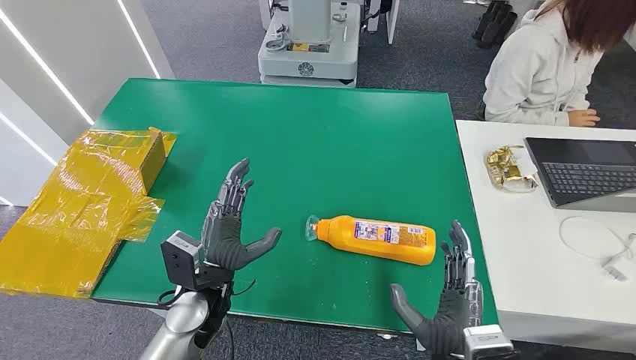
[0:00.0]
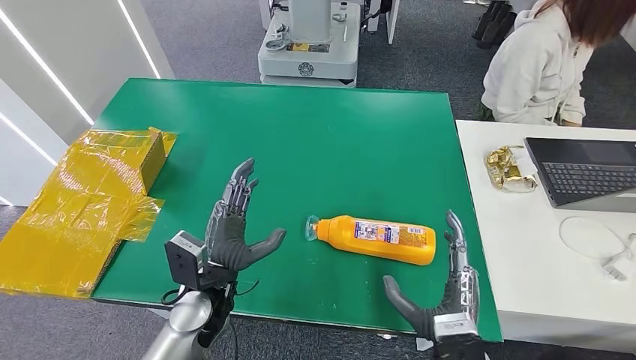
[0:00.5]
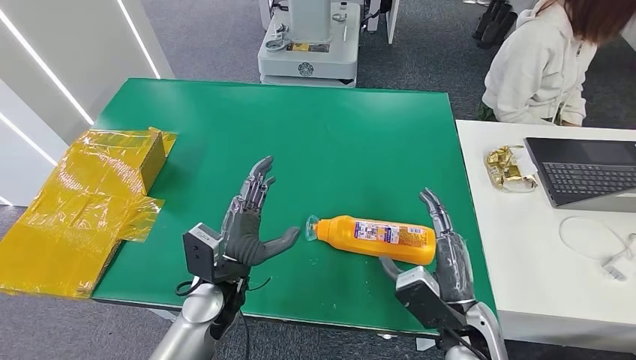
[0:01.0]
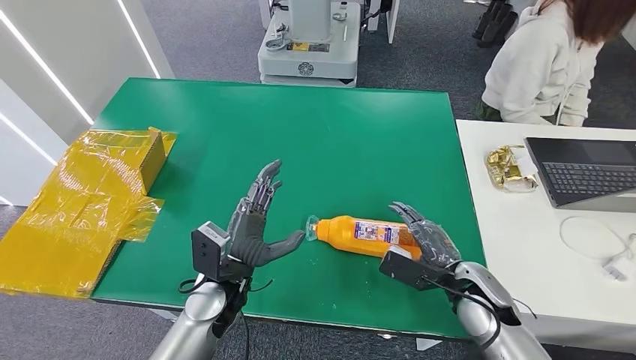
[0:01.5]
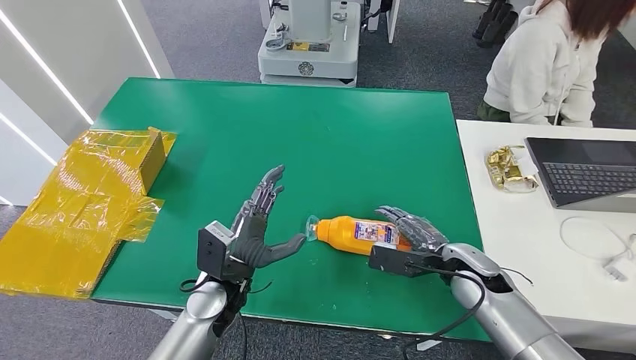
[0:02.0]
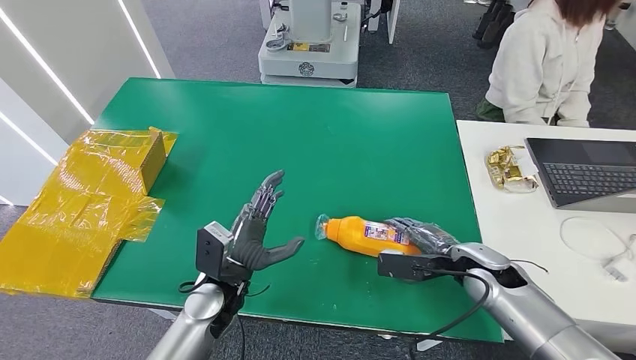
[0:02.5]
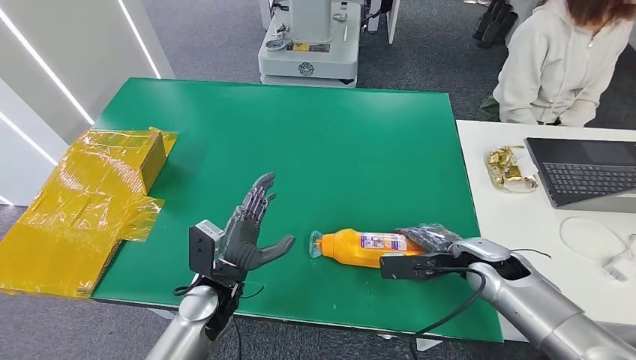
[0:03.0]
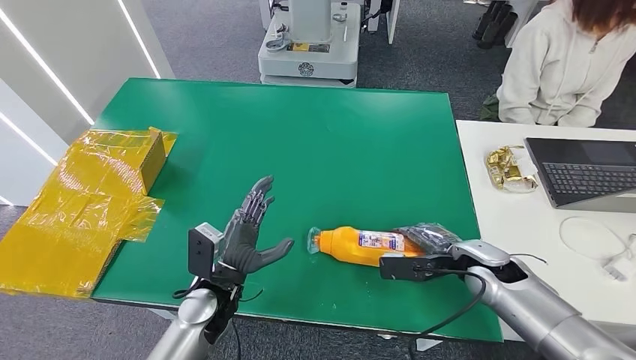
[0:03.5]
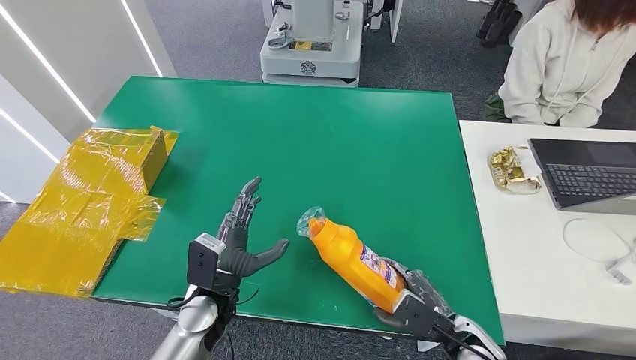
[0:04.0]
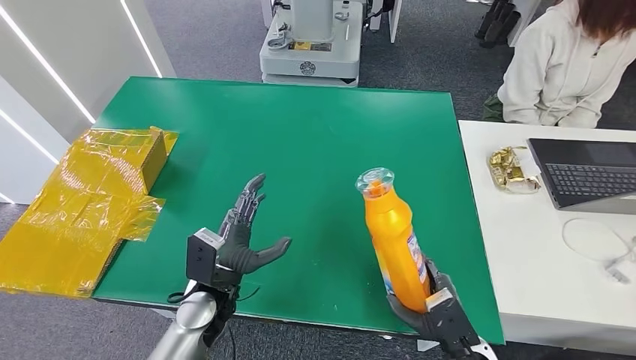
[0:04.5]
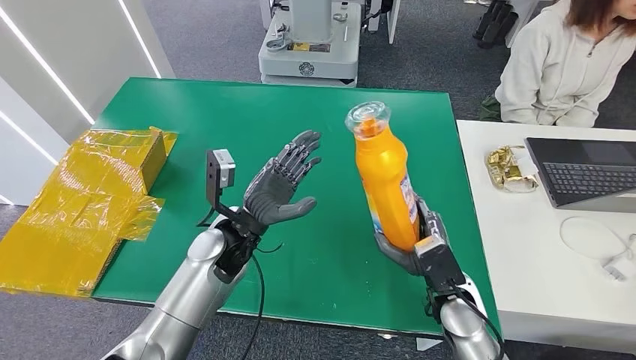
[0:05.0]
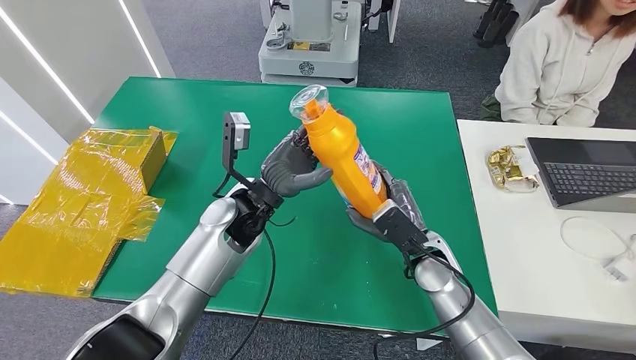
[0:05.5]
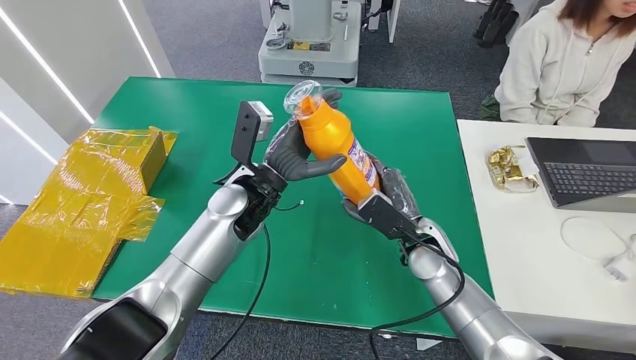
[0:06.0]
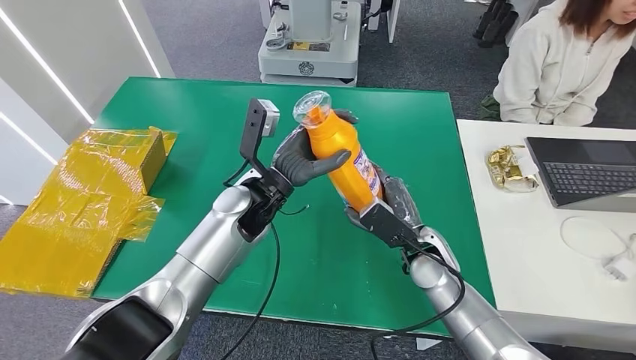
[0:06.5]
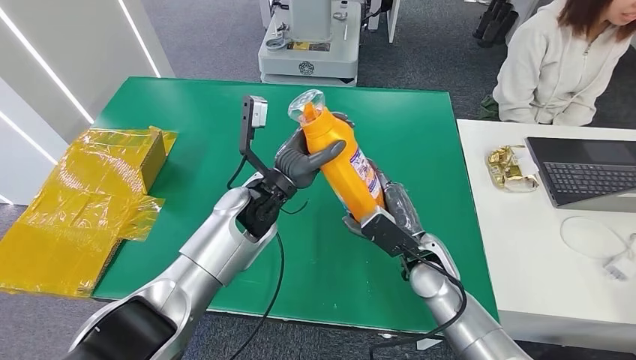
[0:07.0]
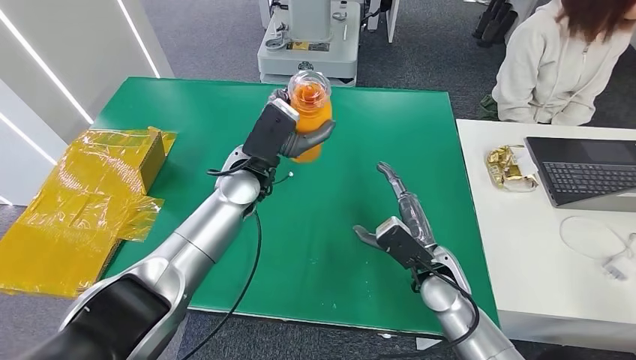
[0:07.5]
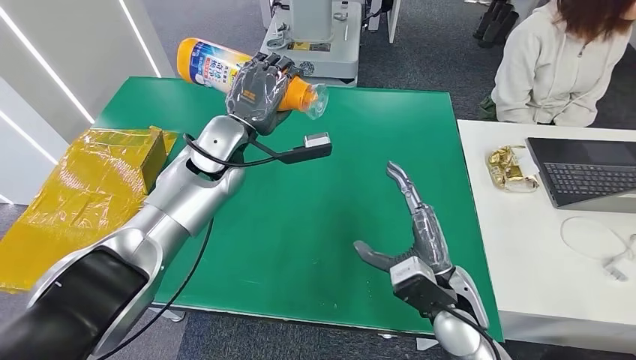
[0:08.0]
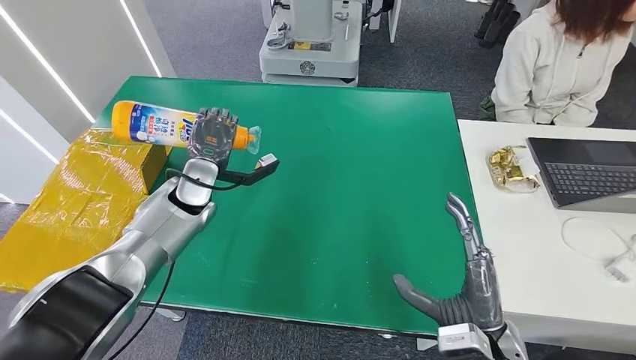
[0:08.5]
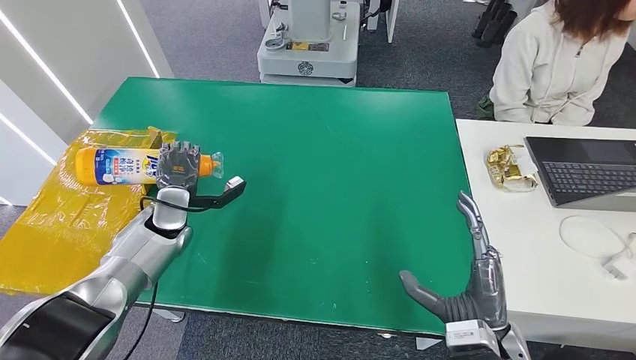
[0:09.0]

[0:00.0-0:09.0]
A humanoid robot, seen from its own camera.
Step, 0:00.0 to 0:04.5: Pick up the bottle from the table.
0:02.0 to 0:04.5: The right hand moves backward and downward, about 15 cm.

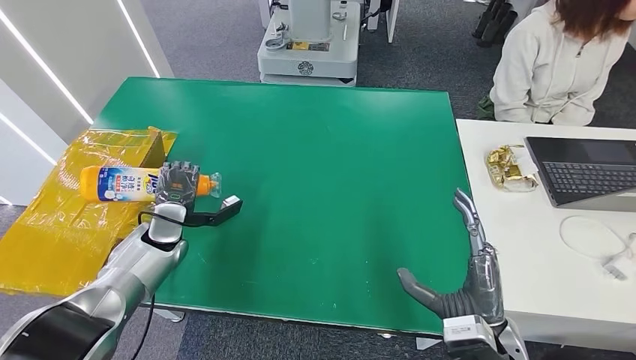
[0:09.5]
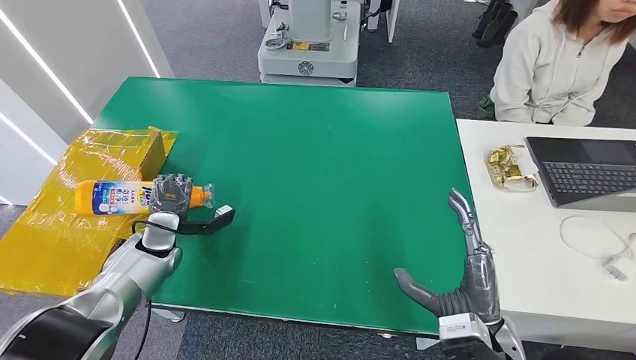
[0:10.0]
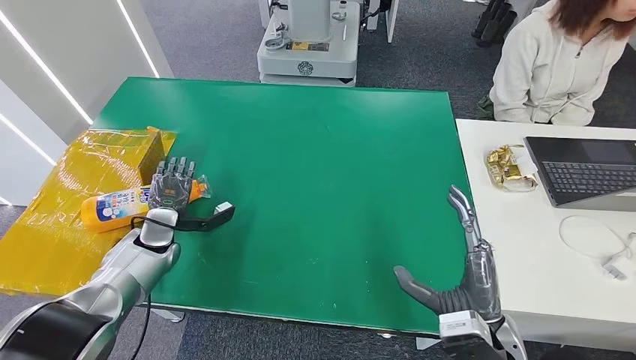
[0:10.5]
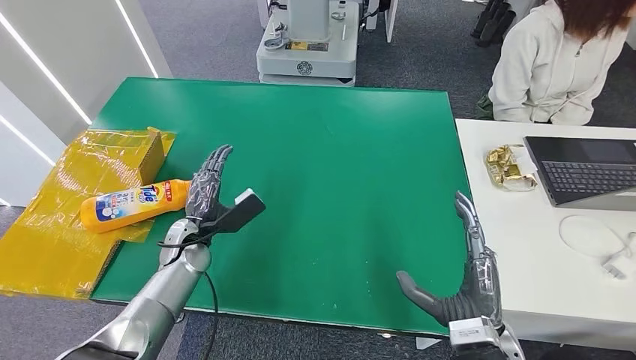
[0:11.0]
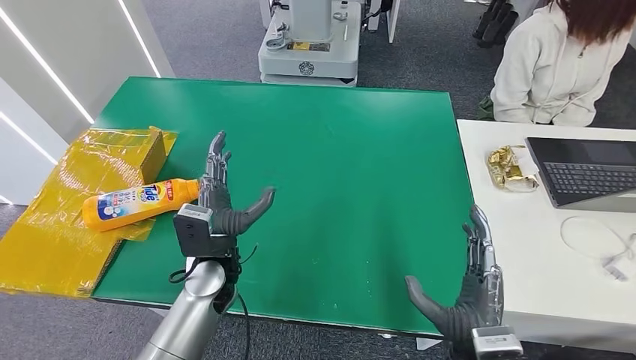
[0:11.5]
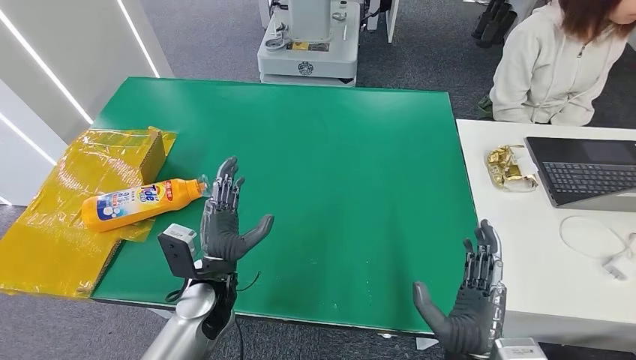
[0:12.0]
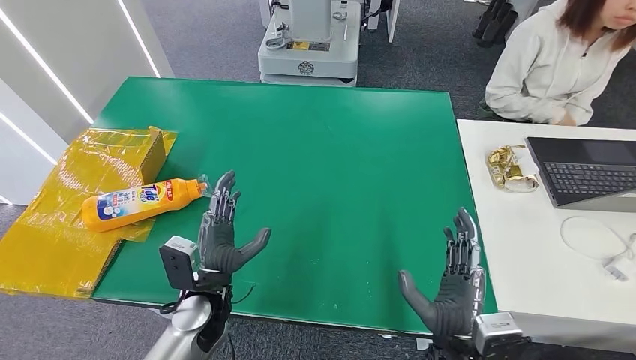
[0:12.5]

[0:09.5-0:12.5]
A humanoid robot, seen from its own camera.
Step, 0:09.5 to 0:12.5: Turn the bottle to the front side.
0:09.5 to 0:11.0: The left hand moves to the right, approximately 5 cm.
0:11.0 to 0:12.5: The left hand shifts about 15 cm backward and to the right; the right hand ends up about 5 cm from where it was.

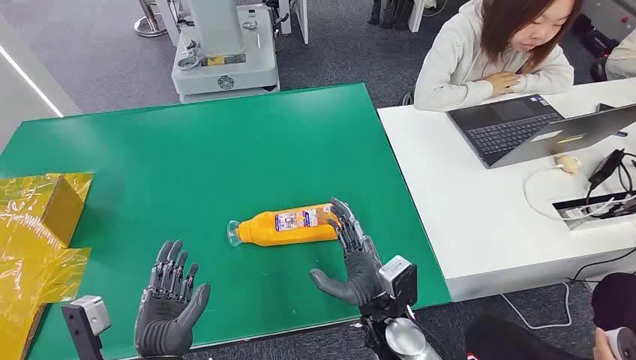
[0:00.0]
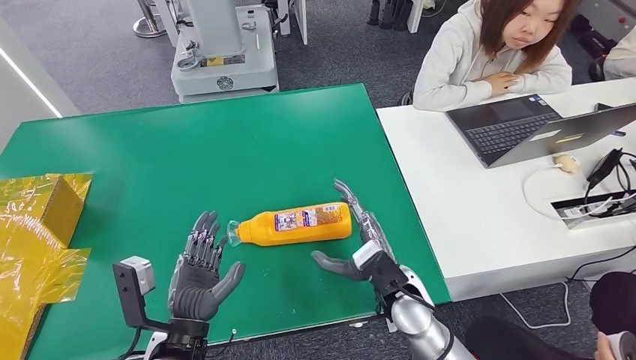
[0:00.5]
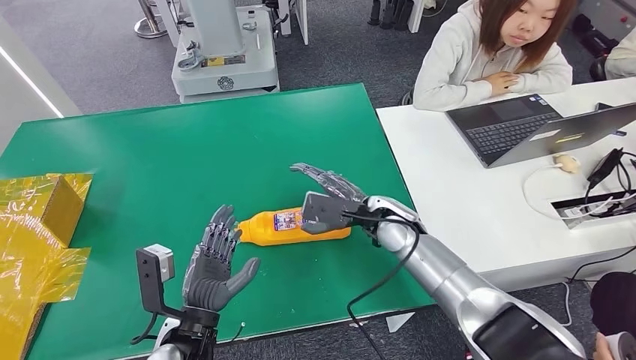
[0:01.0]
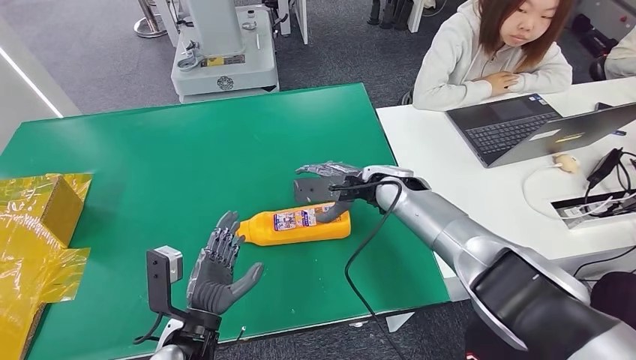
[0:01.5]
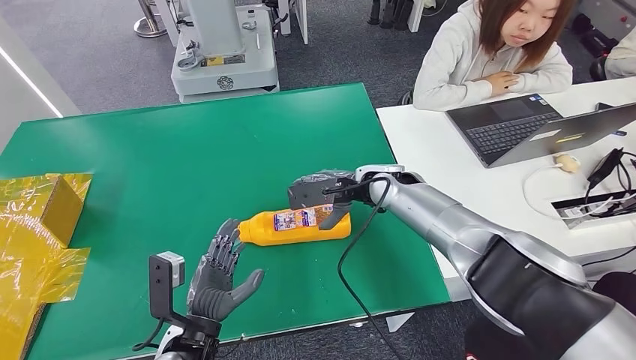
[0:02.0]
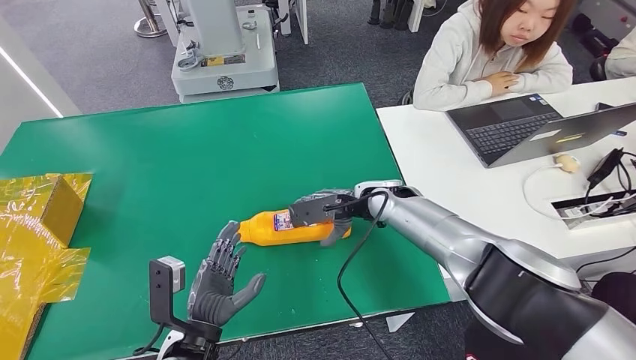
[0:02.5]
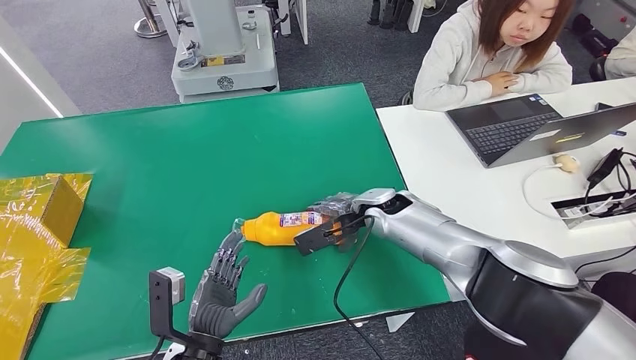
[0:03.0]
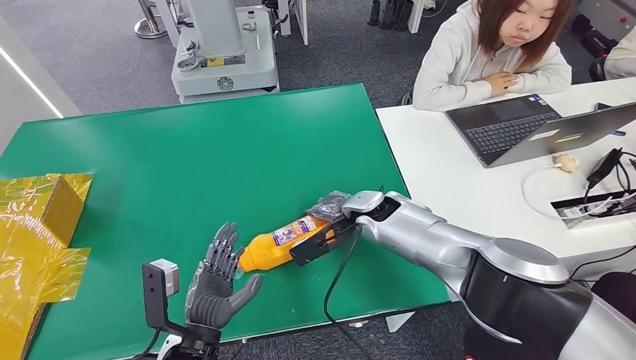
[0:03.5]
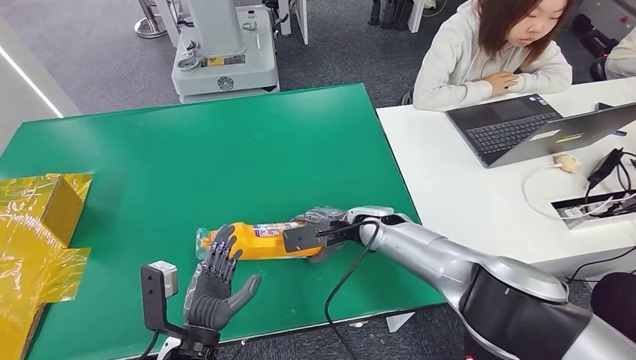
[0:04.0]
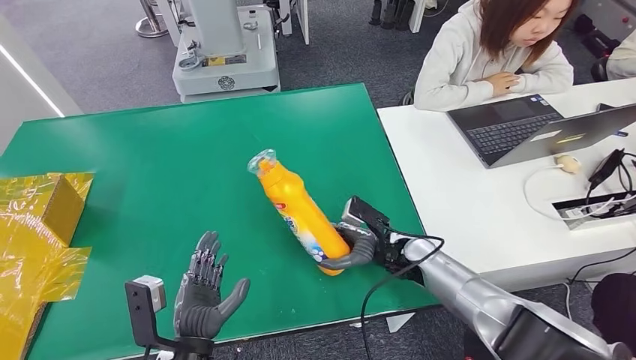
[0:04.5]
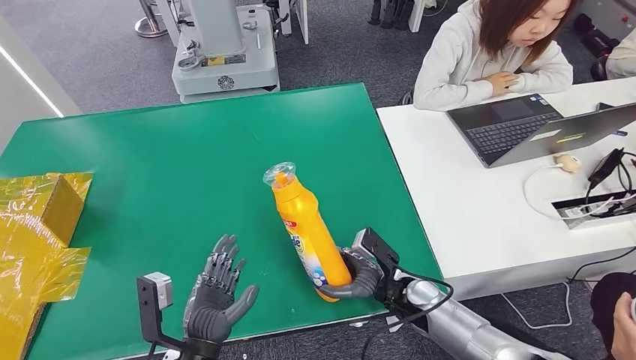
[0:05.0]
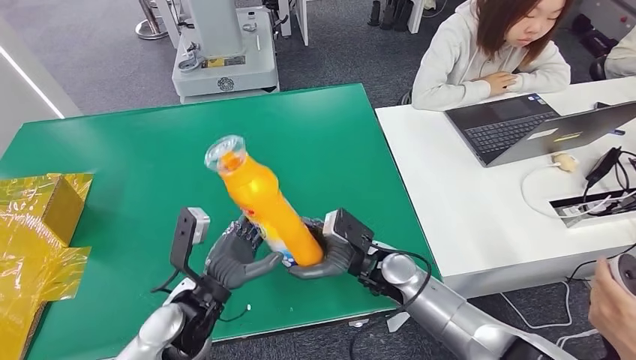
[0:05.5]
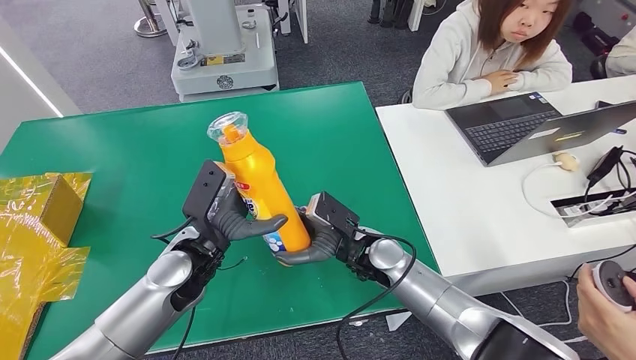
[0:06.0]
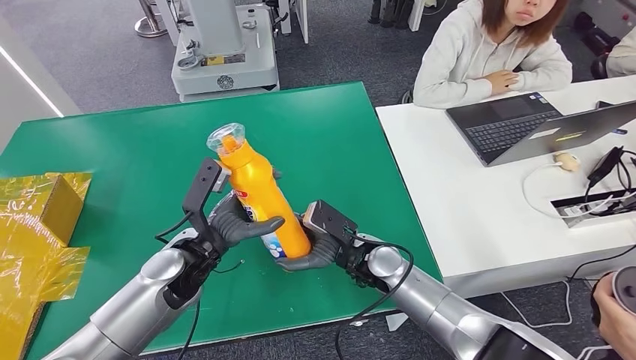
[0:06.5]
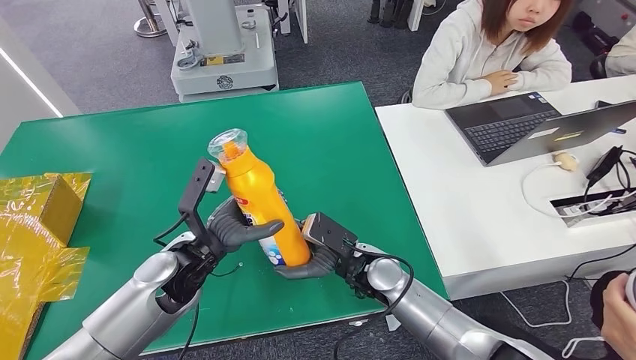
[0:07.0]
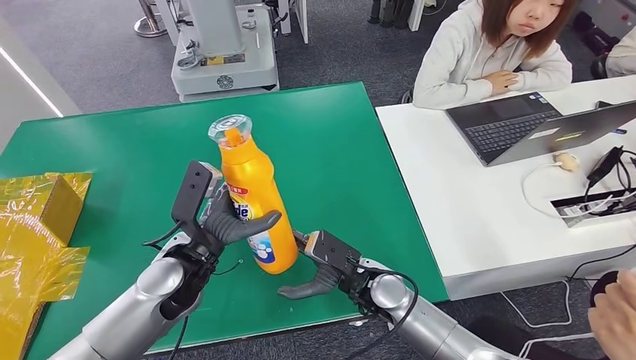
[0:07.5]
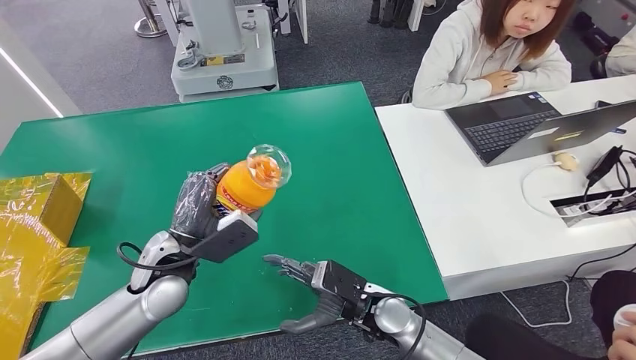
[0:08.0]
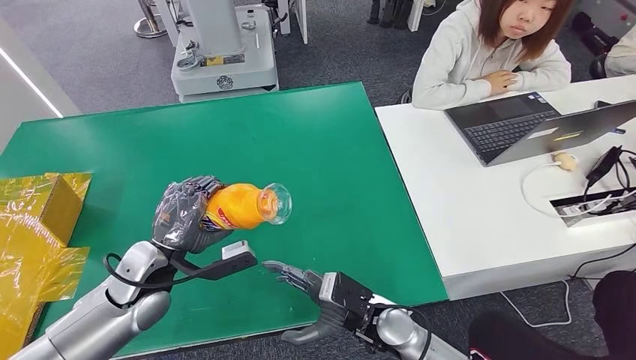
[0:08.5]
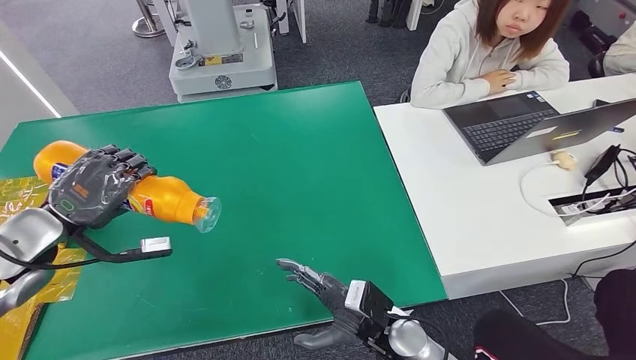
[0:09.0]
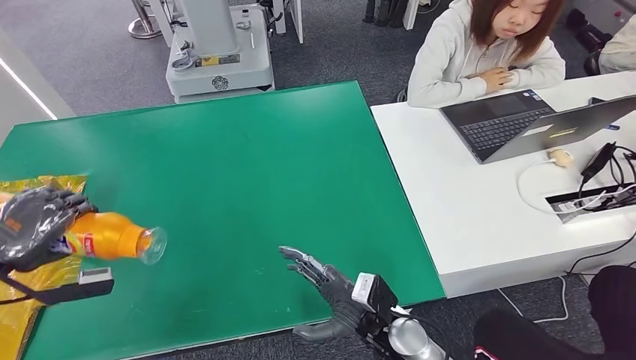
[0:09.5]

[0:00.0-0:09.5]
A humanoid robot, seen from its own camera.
Step, 0:00.0 to 0:05.0: Pick up the bottle from the table.
0:02.0 to 0:04.0: The right hand goes about 10 cm downward.
